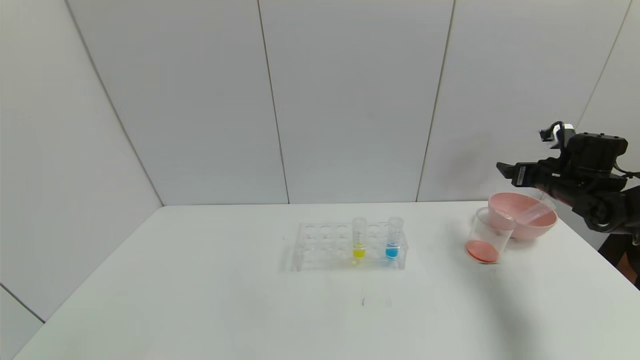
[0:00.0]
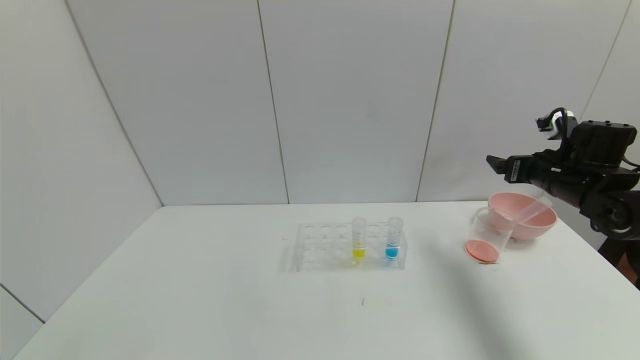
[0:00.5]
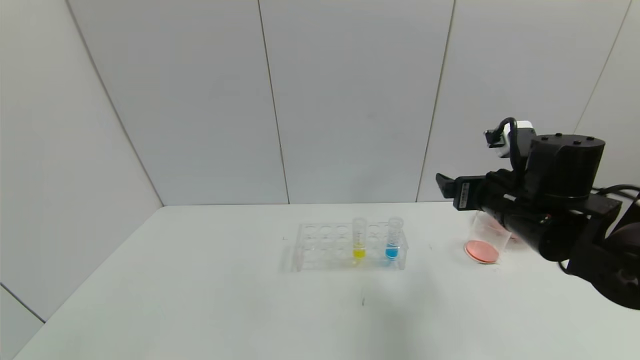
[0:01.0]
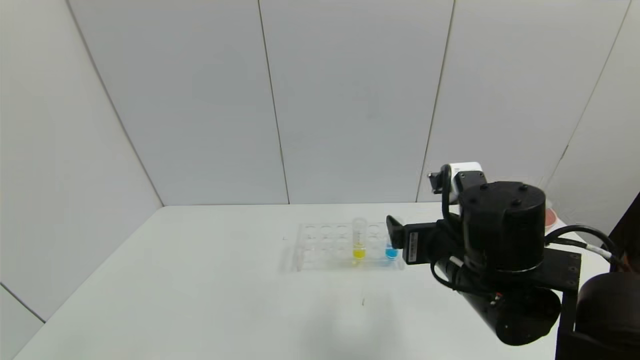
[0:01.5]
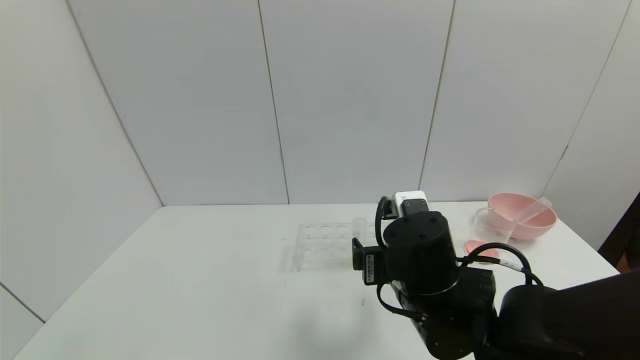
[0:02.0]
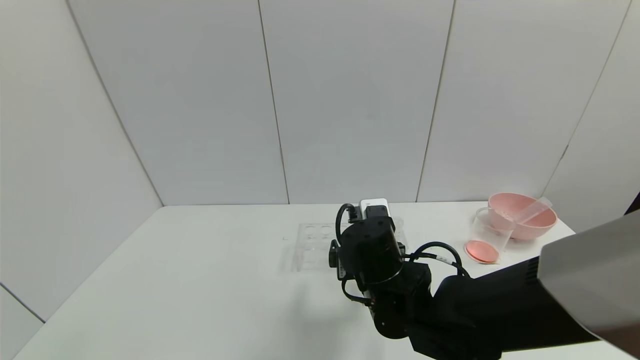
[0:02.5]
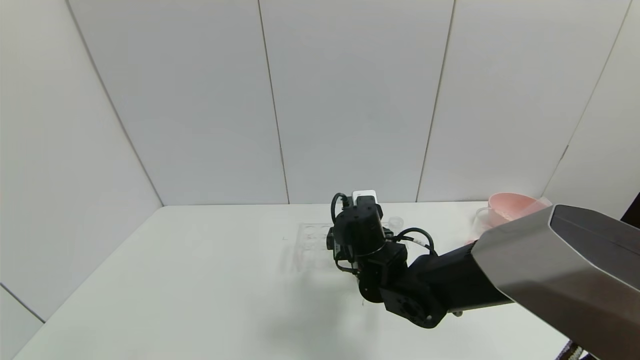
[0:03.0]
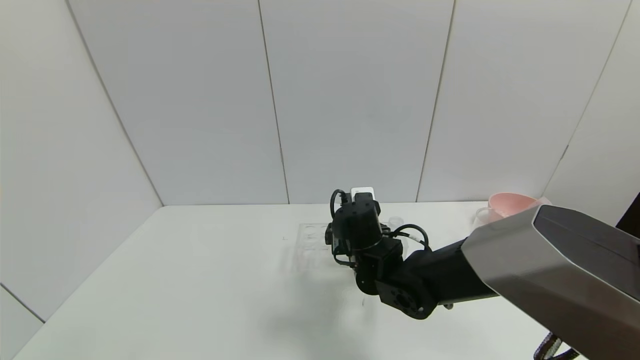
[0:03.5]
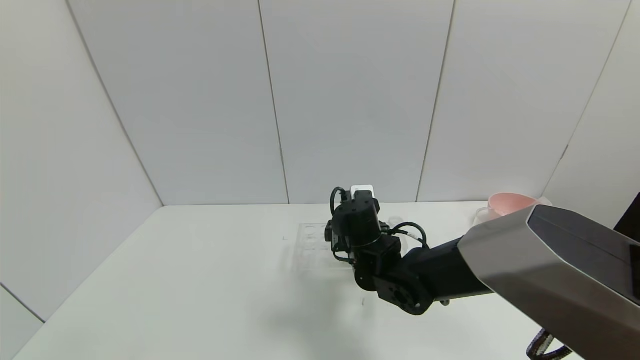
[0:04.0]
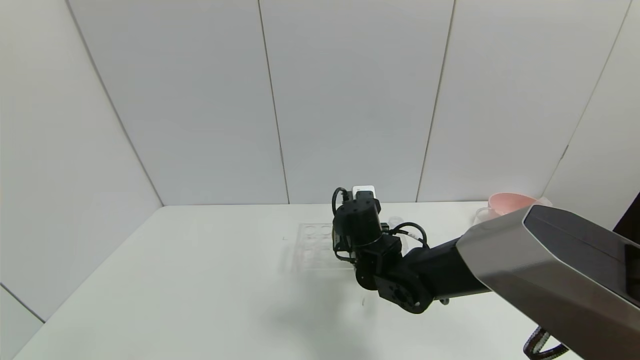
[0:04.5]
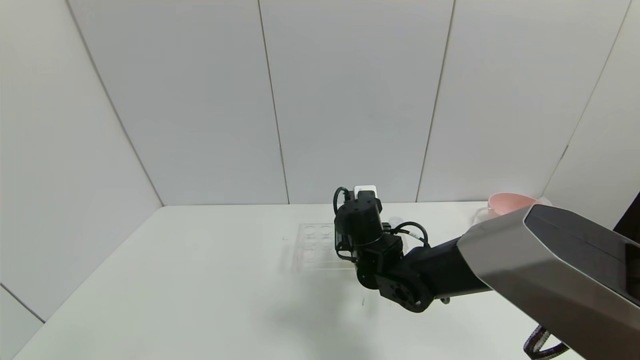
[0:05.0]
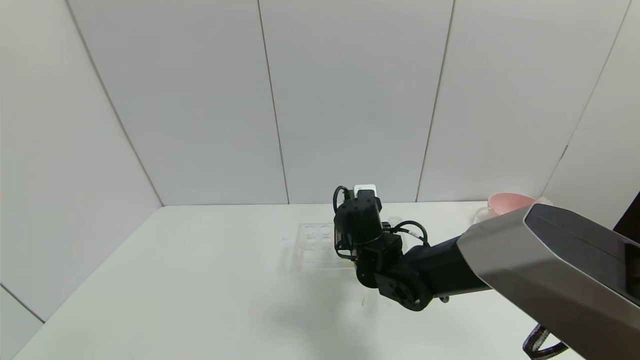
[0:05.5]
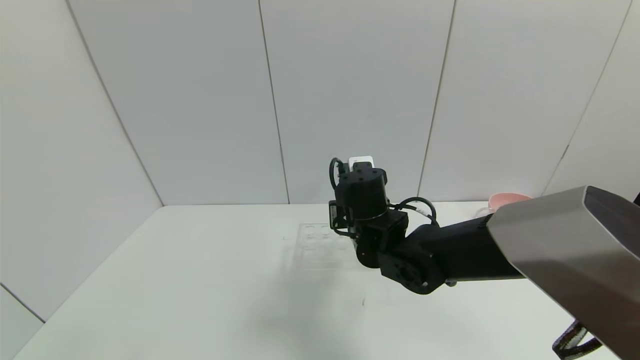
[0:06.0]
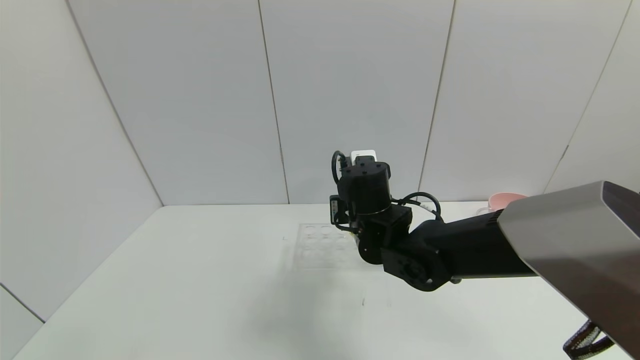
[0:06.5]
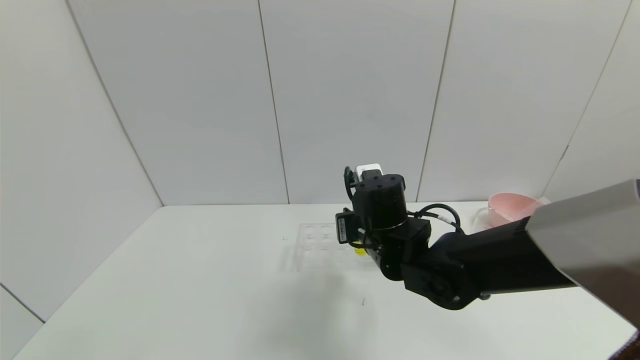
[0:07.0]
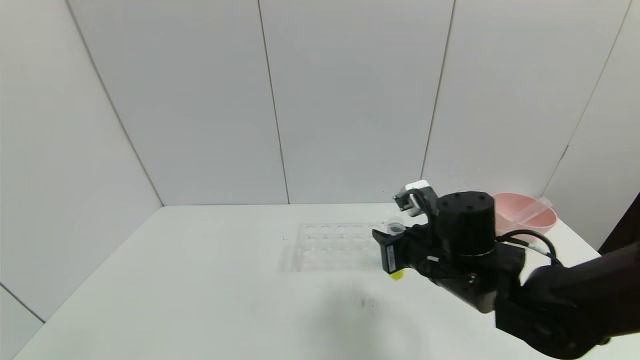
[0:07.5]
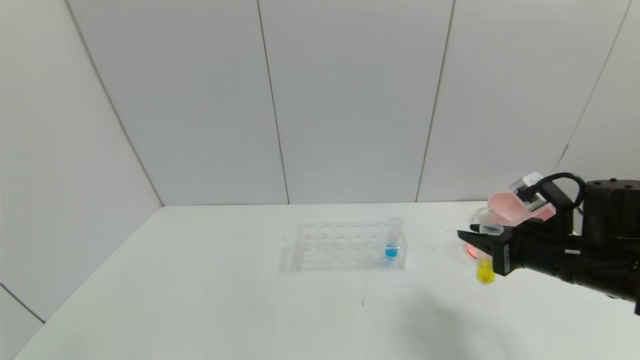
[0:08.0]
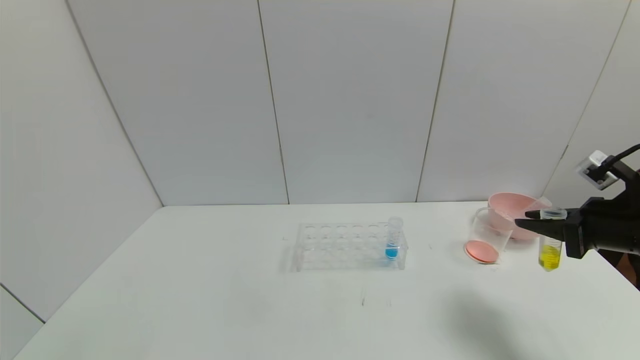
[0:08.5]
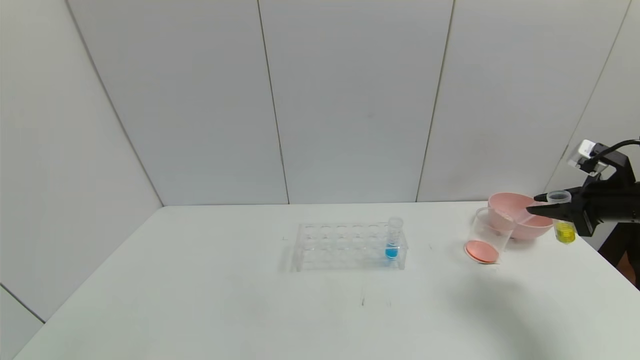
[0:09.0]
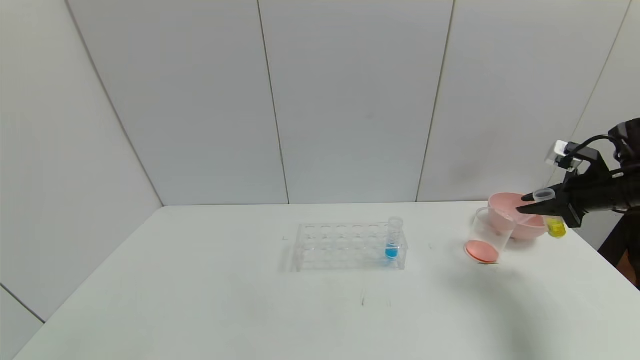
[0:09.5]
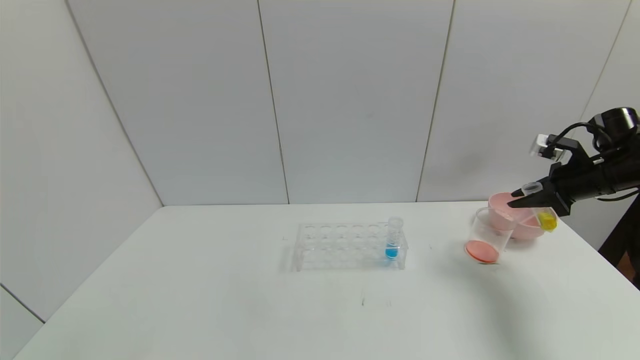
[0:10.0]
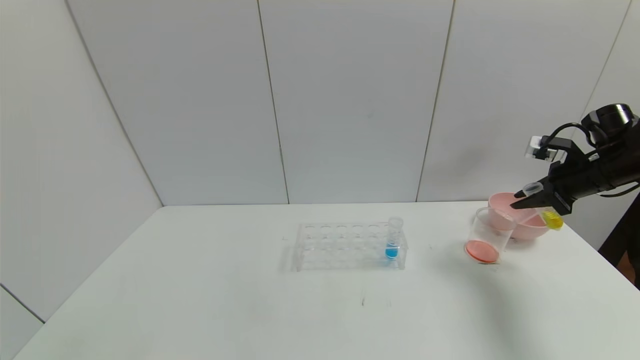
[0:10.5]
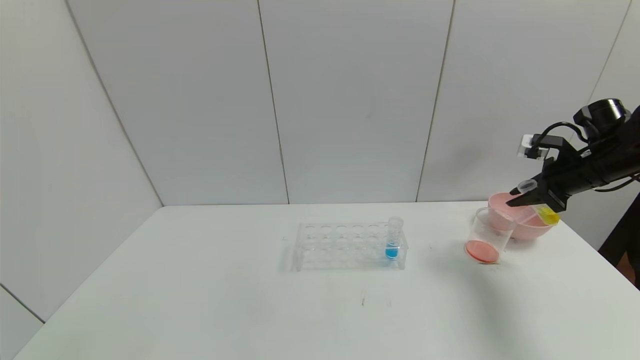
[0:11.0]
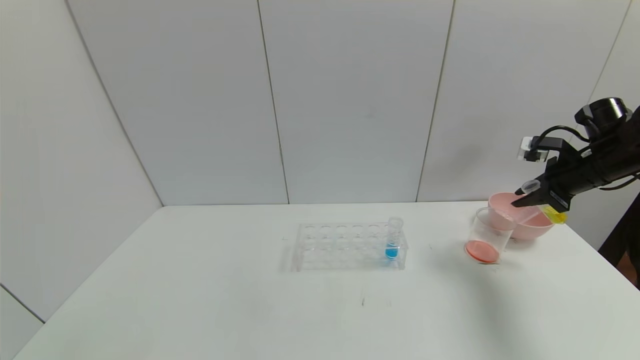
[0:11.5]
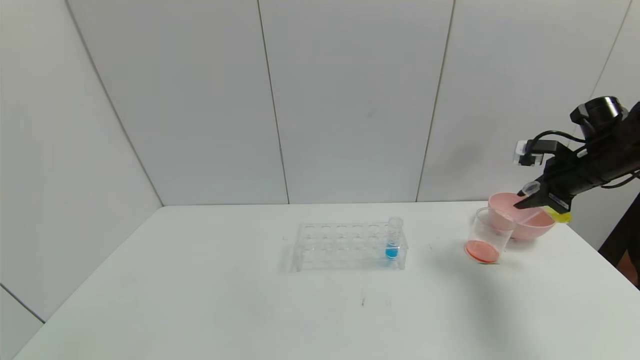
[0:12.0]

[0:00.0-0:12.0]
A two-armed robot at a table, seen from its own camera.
Task of the whole recording: pick up the test tube with yellow pigment and the test tube with red pigment by grippers and pour them into the beaker.
Step, 0:00.0 to 0:05.0: Grasp the yellow reagent with the right gripper.
0:00.0 to 0:02.0: The right gripper goes approximately 40 cm to the left and backward.
0:02.0 to 0:04.0: The right gripper travels forward and downward by about 15 cm.
0:04.0 to 0:06.0: The right gripper closes up.
0:06.0 to 0:08.0: The right gripper heads to the right, covering some 25 cm.
0:08.0 to 0:10.0: The right gripper travels to the right and forward by roughly 20 cm.
0:10.0 to 0:12.0: There are only small adjustments of the grippers.

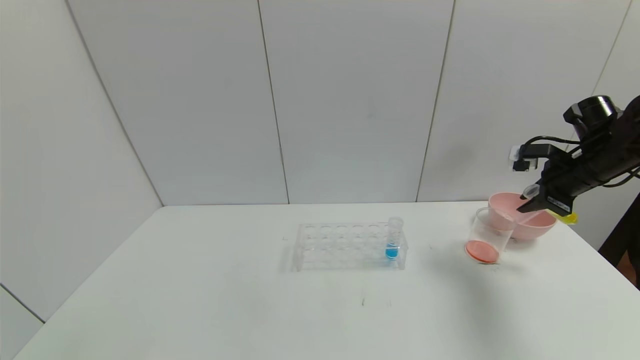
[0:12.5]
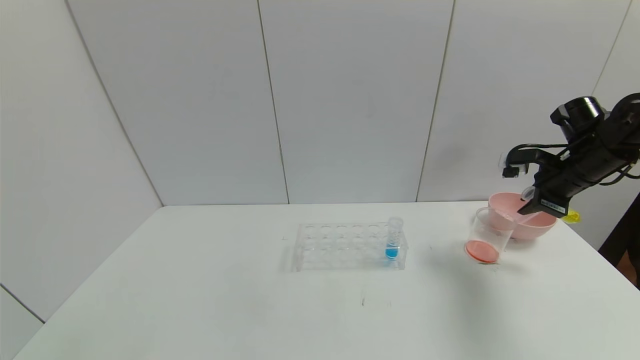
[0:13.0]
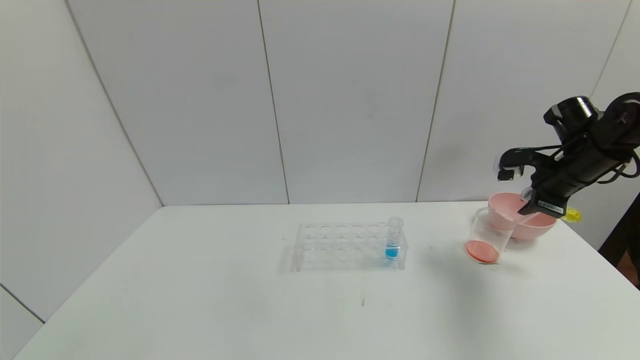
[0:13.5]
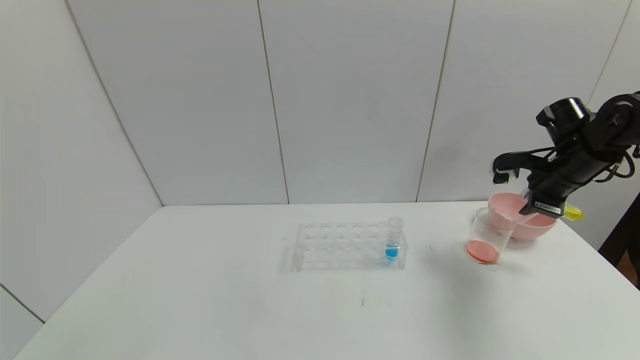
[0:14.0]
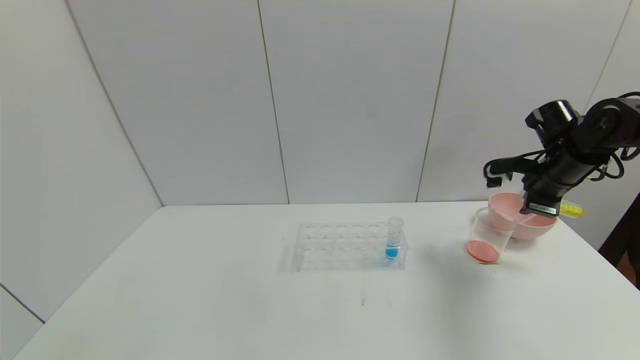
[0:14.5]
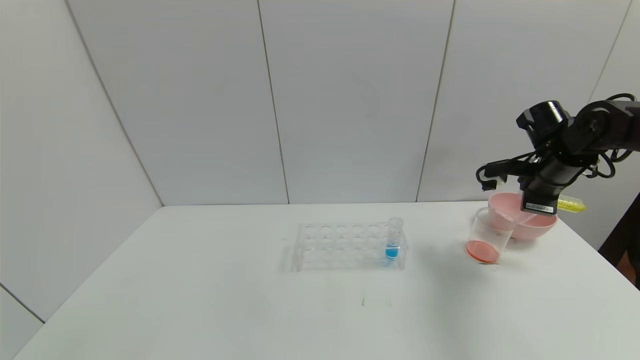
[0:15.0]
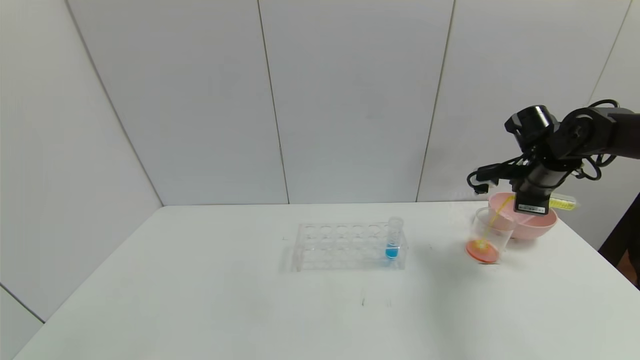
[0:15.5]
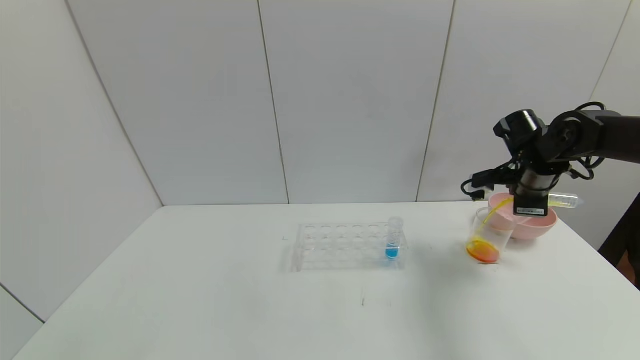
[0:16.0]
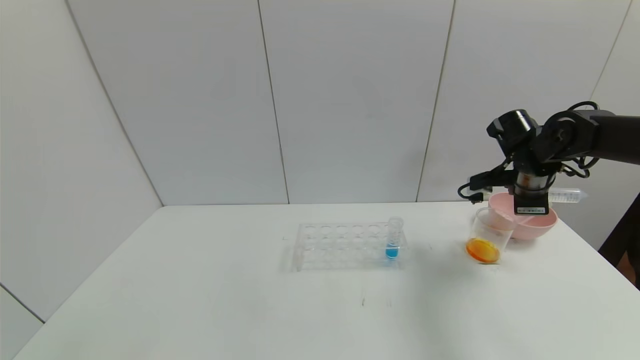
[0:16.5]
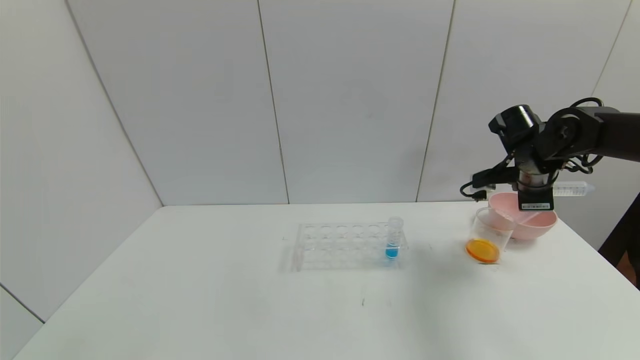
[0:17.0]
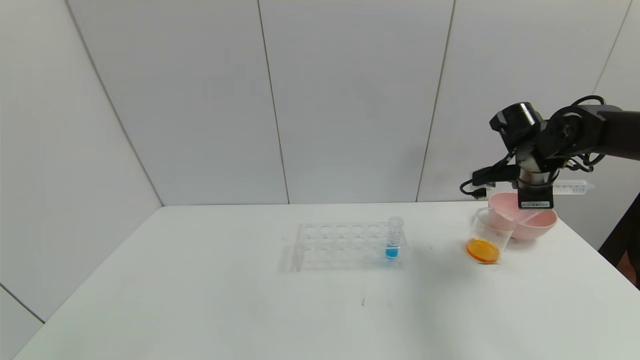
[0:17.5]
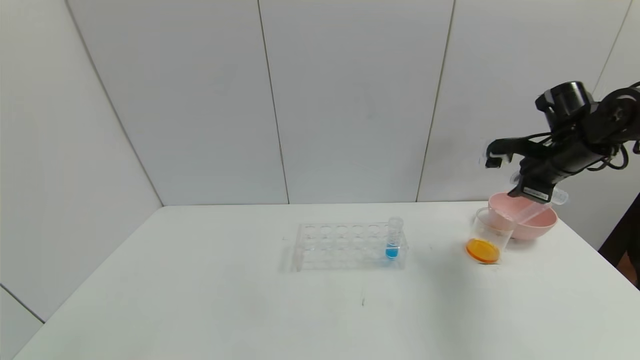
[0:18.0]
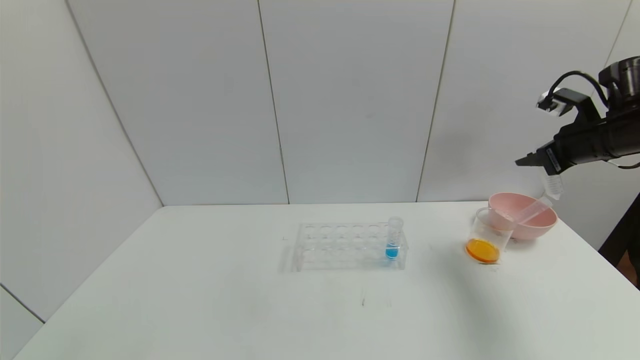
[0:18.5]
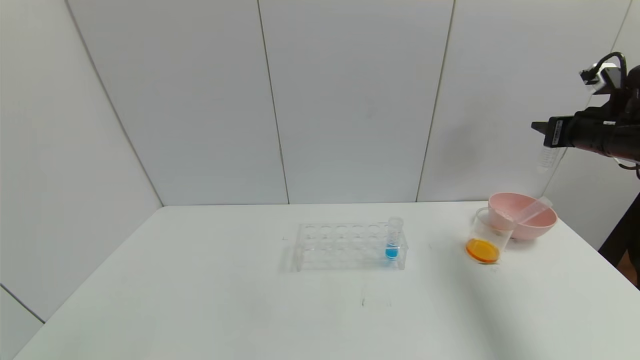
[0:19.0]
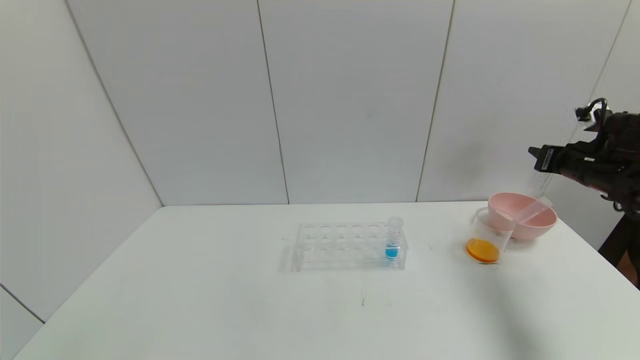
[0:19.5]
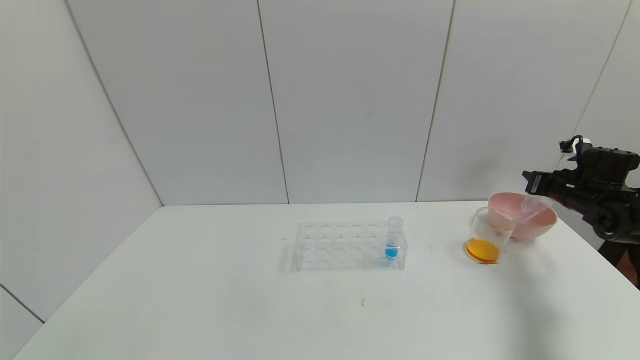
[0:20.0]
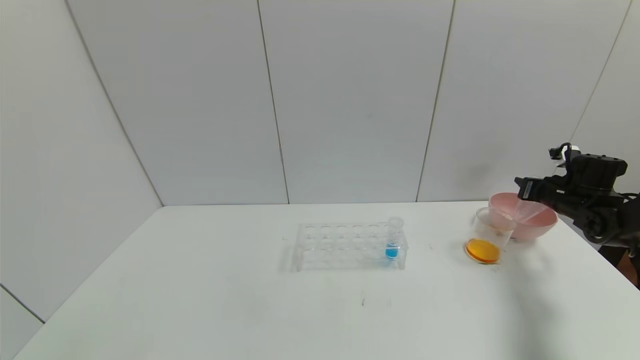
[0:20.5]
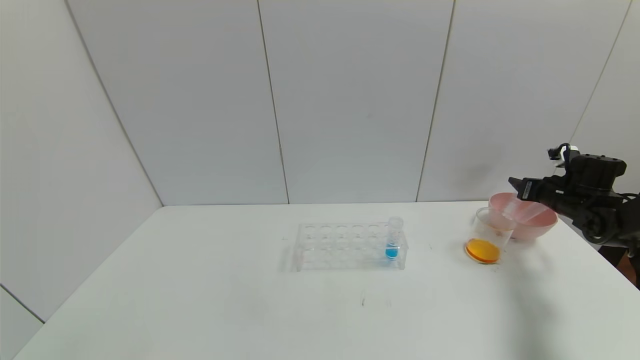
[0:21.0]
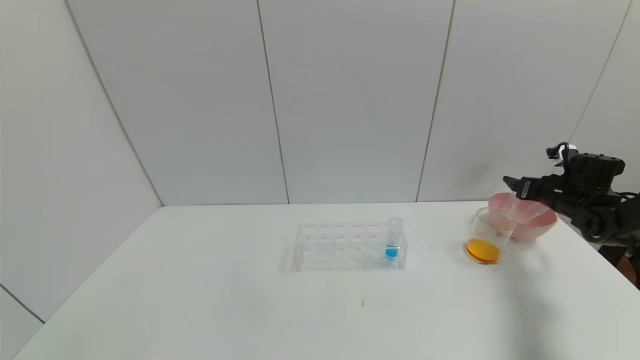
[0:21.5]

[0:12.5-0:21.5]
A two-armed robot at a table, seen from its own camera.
Task of the whole recording: pick up the test tube with yellow pigment and the test tube with red pigment by grippers and pour them into the beaker.
Step, 0:12.5 to 0:17.0: Pour the yellow reagent into the graduated cylinder with the right gripper.
Step, 0:17.5 to 0:21.0: Place the test tube into the bowl with the right gripper.
0:17.0 to 0:19.5: The right gripper goes some 10 cm to the right.
0:19.5 to 0:21.5: The right gripper travels downward by approximately 10 cm, and opens up.
